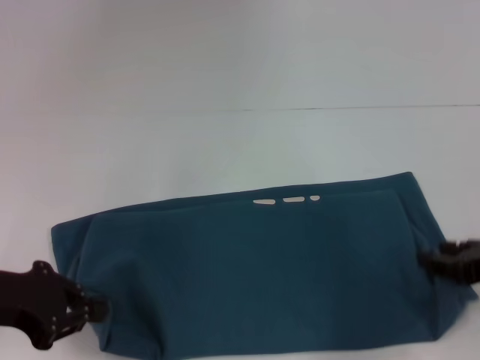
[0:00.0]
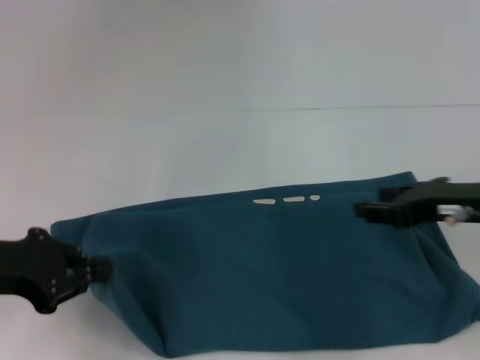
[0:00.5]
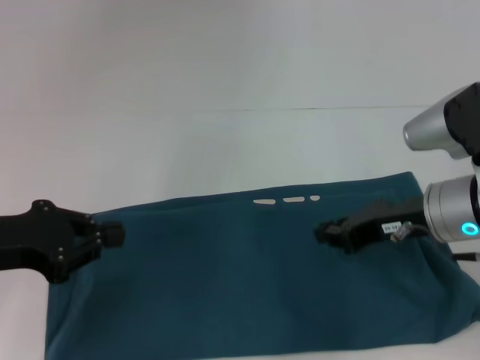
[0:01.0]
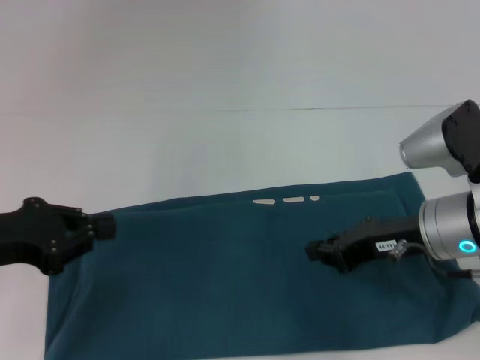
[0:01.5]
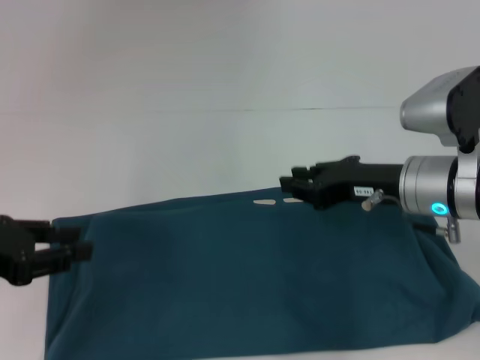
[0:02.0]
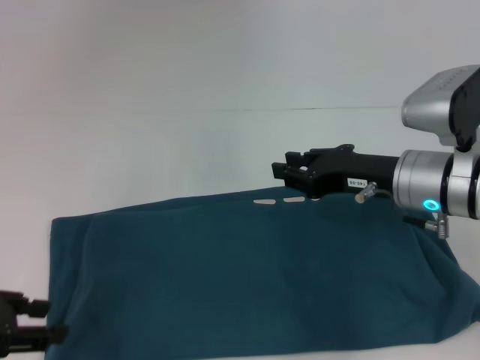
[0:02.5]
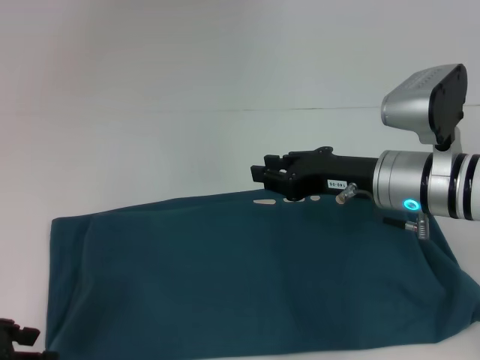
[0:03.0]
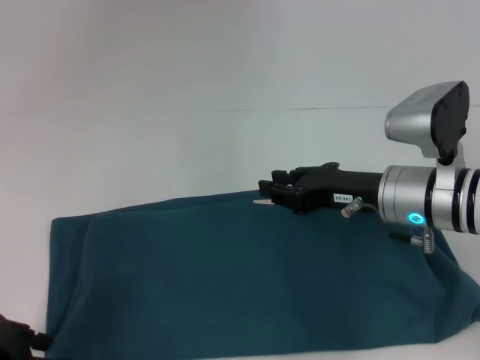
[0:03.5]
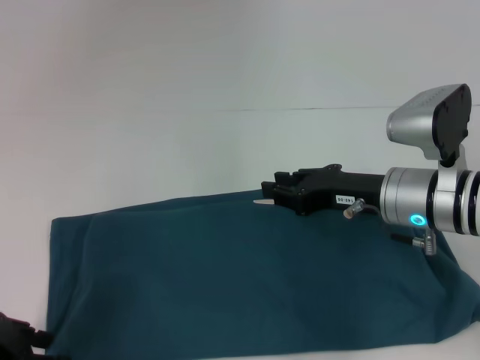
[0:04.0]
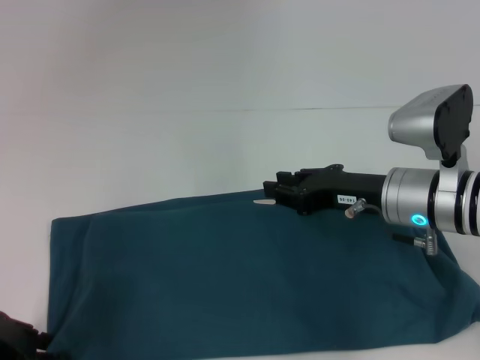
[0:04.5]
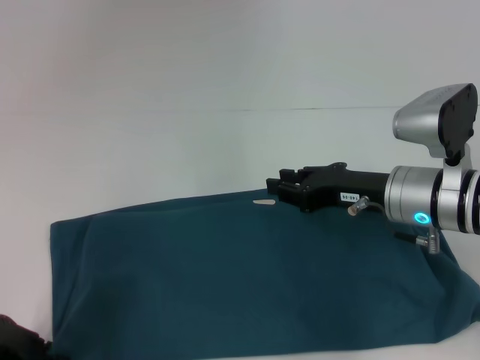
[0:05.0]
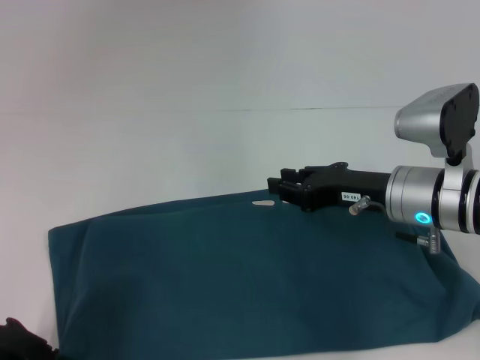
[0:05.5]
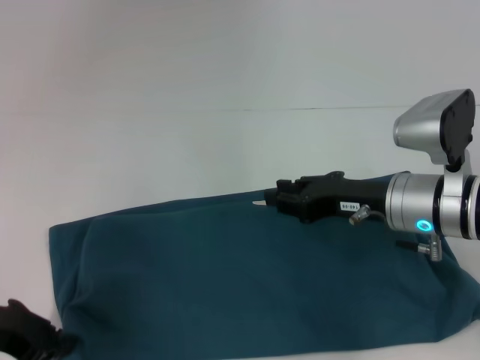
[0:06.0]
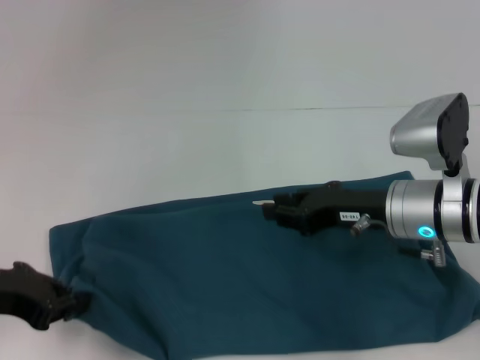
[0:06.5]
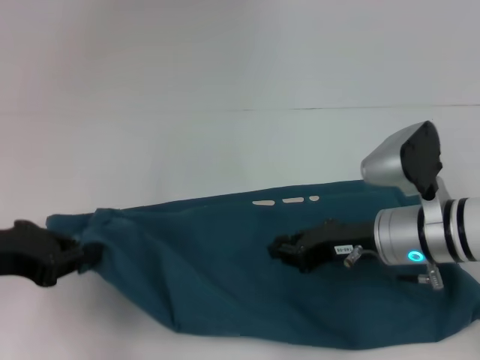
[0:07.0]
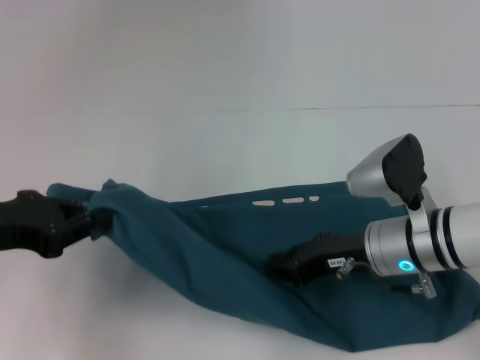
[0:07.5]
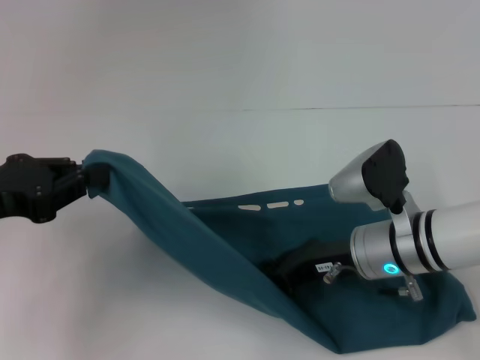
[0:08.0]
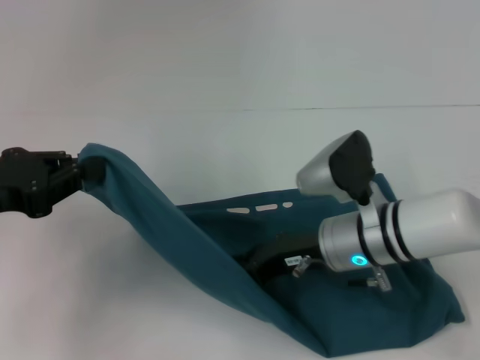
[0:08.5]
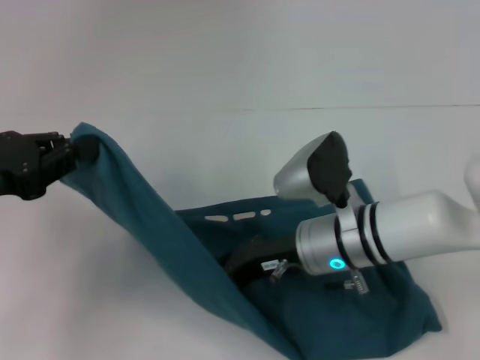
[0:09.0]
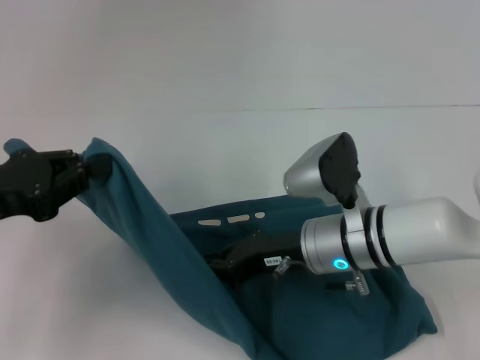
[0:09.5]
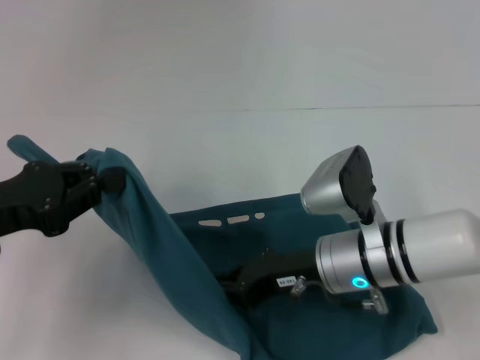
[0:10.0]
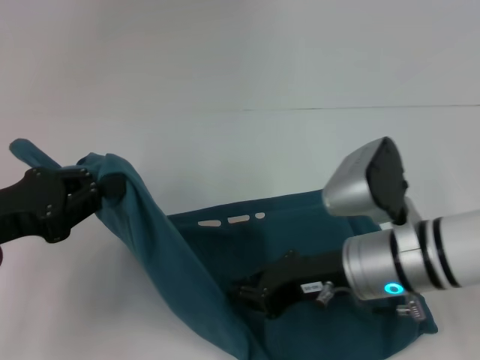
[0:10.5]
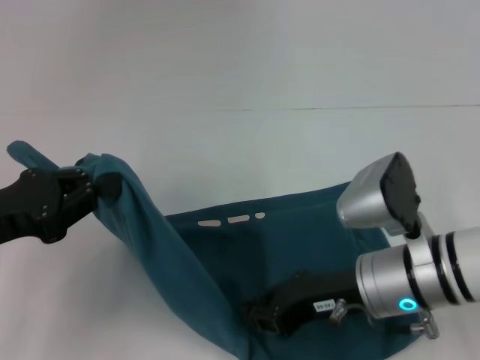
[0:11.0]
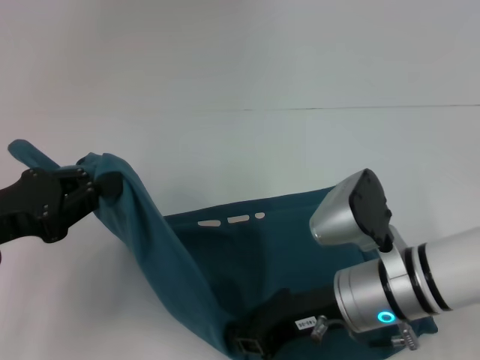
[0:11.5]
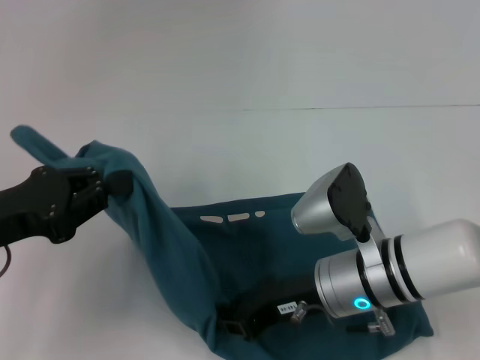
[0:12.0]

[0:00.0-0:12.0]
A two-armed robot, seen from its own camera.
0:00.0 to 0:02.0: The right gripper travels forward and to the left by roughly 15 cm, and opens and closes again.
0:02.0 to 0:04.0: The left gripper is displaced downward by roughly 5 cm, and opens its fingers.
0:04.0 to 0:06.0: The left gripper closes its fingers.
0:06.0 to 0:08.0: The left gripper goes some 5 cm upward, while the right gripper moves roughly 5 cm.
0:10.0 to 0:12.0: The grippers stay close to where they were, moving slightly.

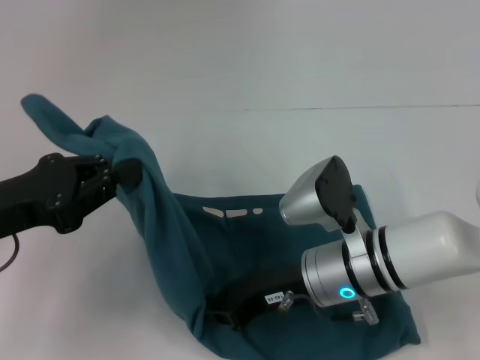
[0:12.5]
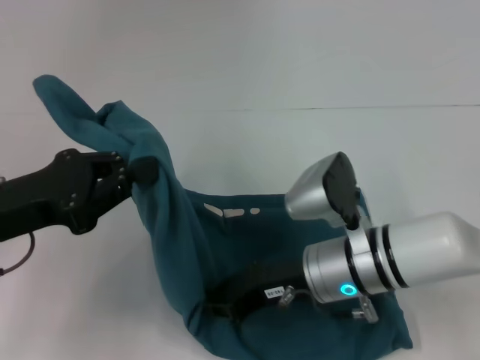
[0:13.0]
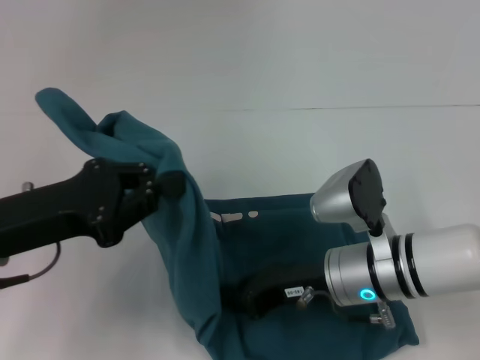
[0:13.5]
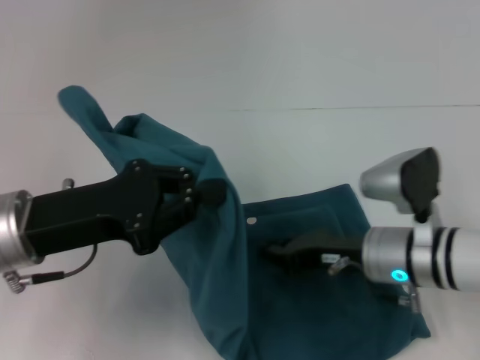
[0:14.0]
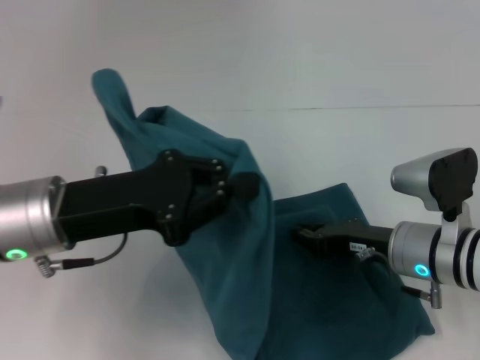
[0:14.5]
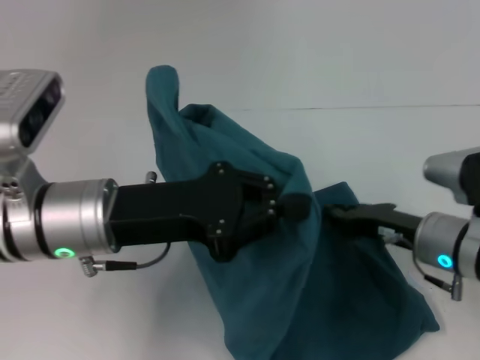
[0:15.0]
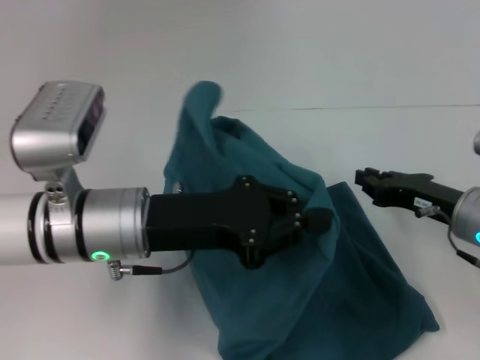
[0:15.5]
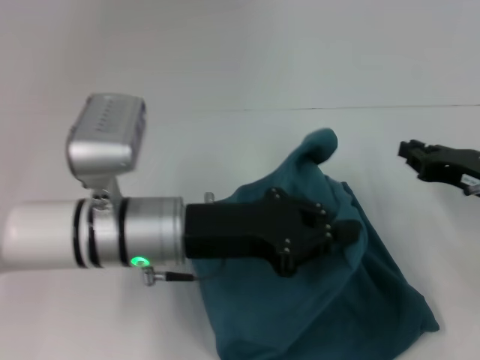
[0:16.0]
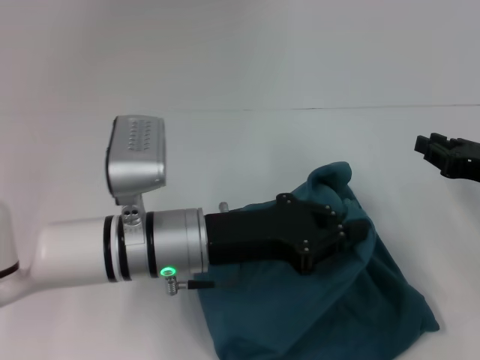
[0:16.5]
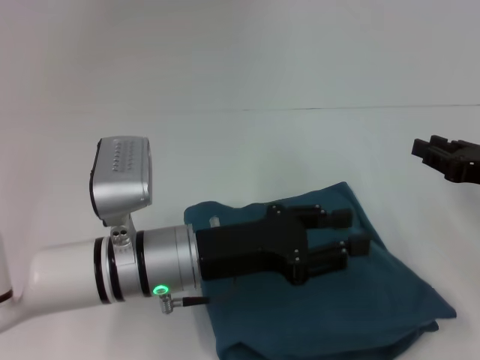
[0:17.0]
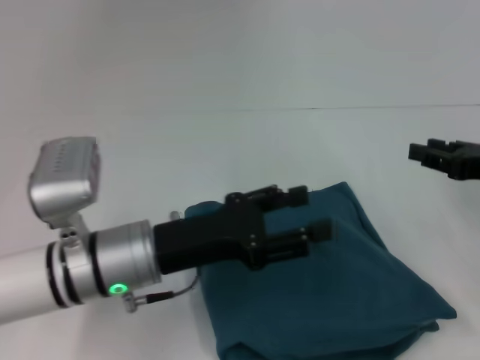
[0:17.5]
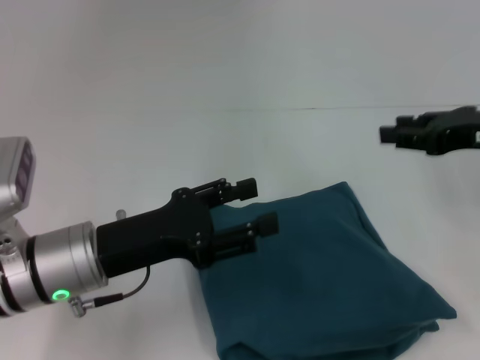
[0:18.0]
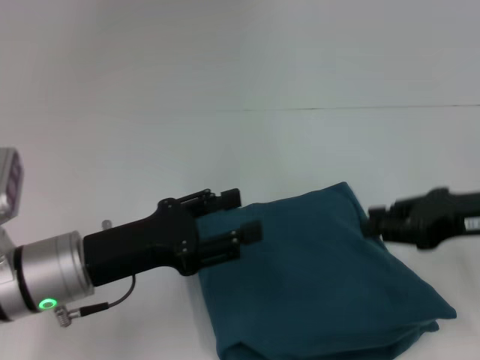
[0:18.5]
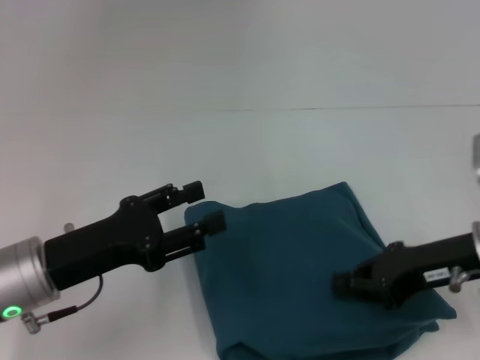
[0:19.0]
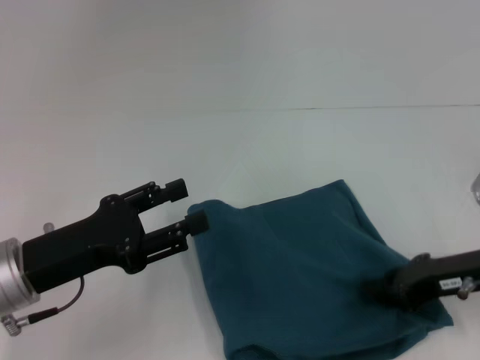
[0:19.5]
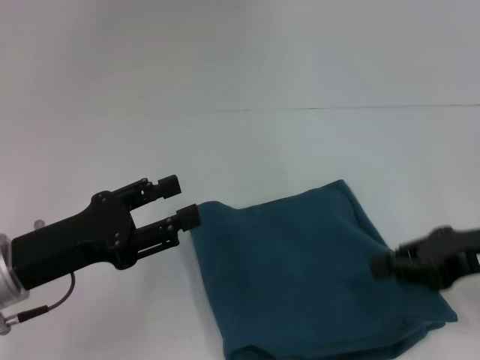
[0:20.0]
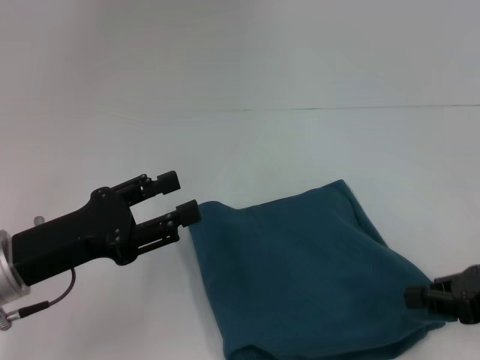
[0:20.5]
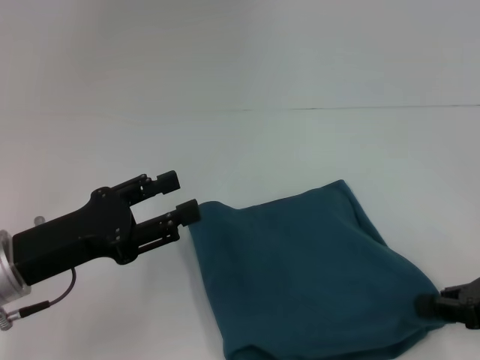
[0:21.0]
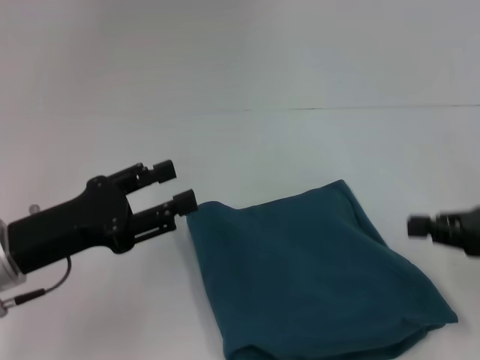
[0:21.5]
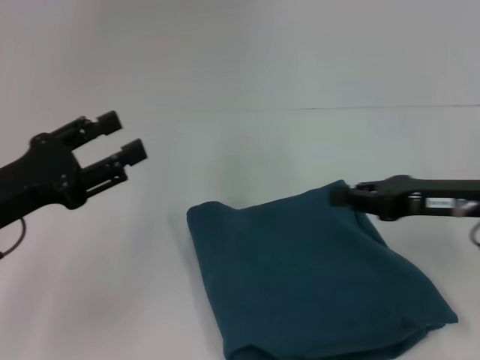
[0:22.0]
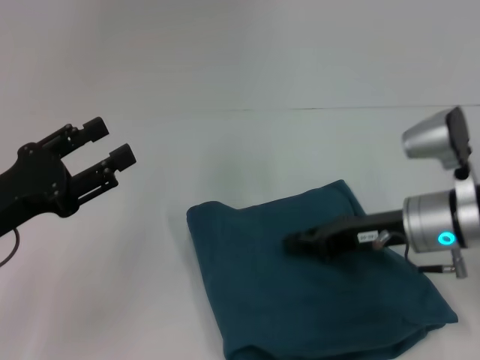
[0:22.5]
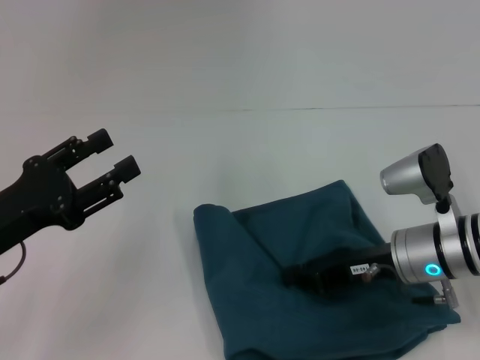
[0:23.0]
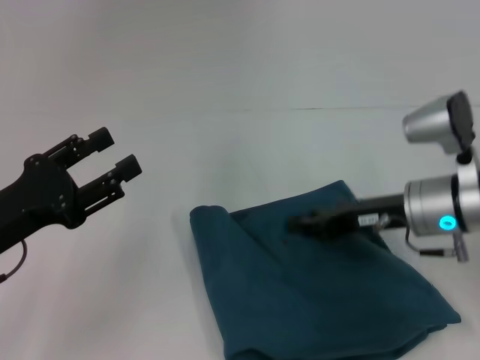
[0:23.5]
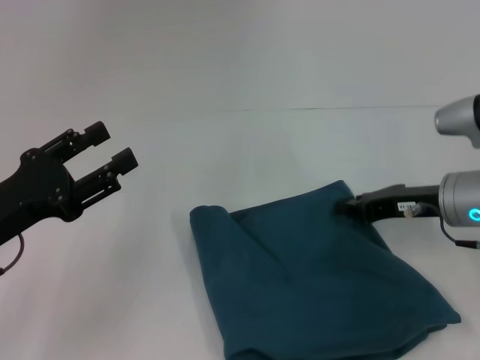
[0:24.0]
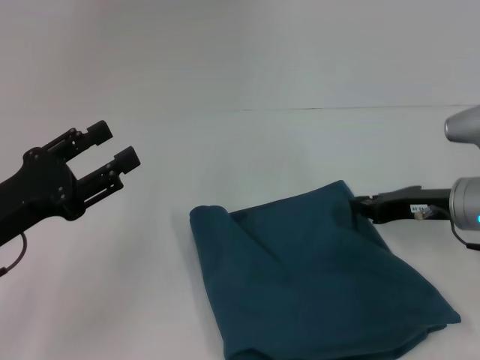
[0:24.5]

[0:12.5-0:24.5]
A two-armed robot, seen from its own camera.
Step, 0:14.5 to 0:17.0: Fold the clothes to the left.
0:12.5 to 0:14.5: Both grippers move to the right, some 10 cm.
0:14.5 to 0:16.5: The right gripper shifts some 15 cm to the right and upward, while the left gripper shifts approximately 10 cm to the right and downward.
0:16.5 to 0:18.5: The left gripper heads to the left, covering roughly 10 cm, and opens its fingers.
0:18.5 to 0:20.5: The left gripper ends up roughly 5 cm from where it was; the right gripper travels backward by about 5 cm, and closes its fingers.
0:20.5 to 0:22.5: The right gripper travels to the left and forward by approximately 15 cm.

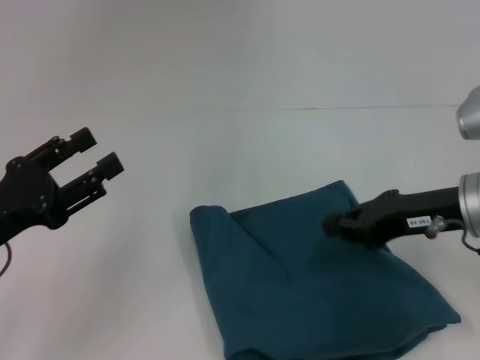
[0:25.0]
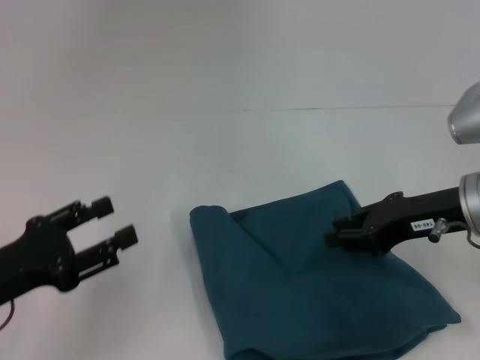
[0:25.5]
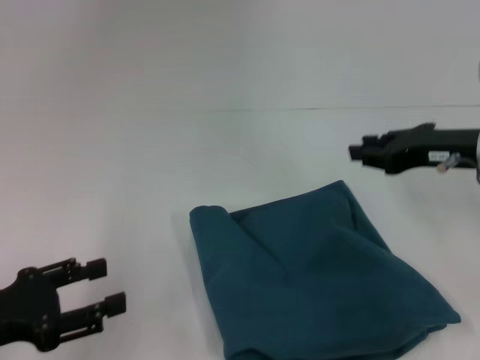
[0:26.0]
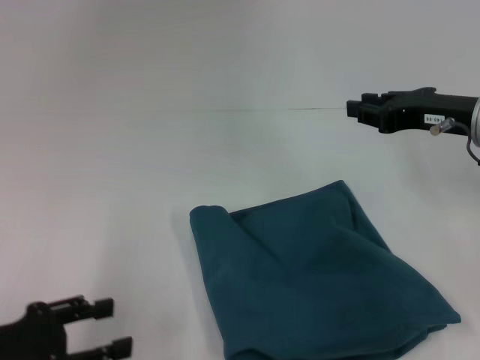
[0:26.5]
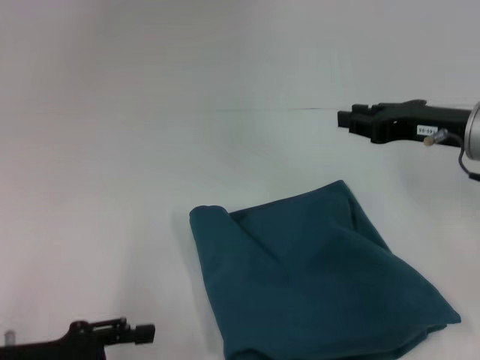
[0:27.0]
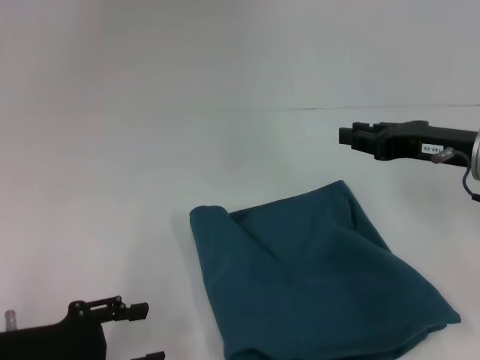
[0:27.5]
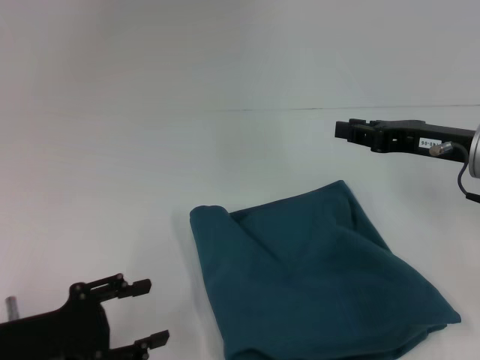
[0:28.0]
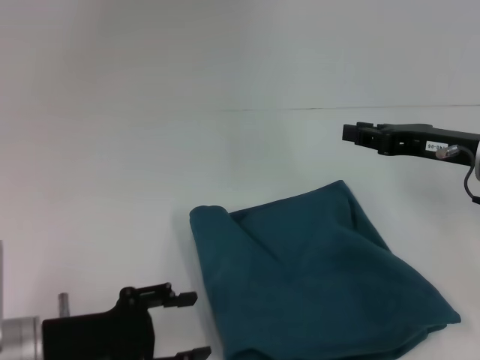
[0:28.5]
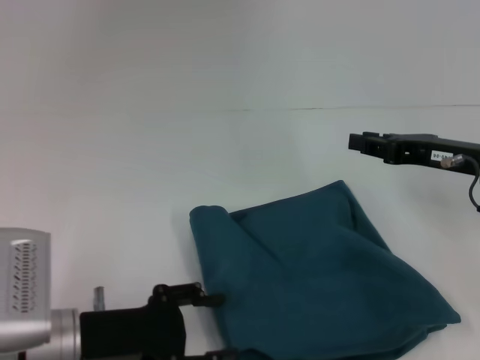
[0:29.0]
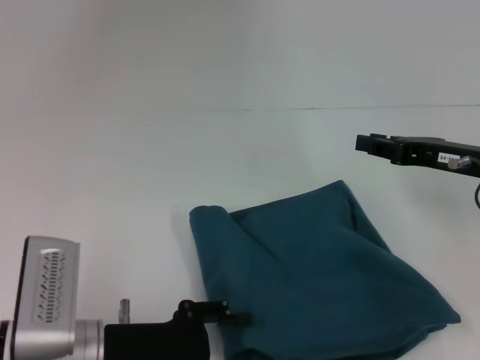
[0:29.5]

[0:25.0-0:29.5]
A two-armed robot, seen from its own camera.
0:25.0 to 0:27.0: The left gripper goes approximately 5 cm backward.
0:27.0 to 0:29.5: The left gripper moves to the right, about 10 cm.
